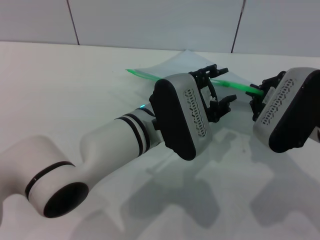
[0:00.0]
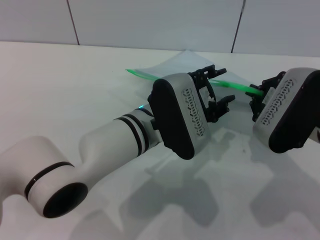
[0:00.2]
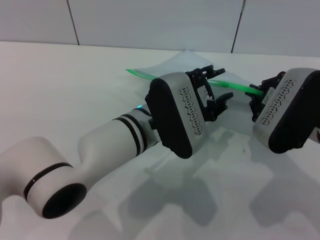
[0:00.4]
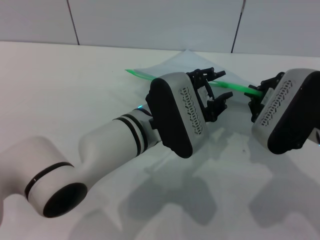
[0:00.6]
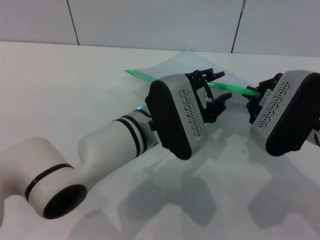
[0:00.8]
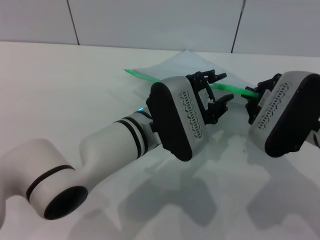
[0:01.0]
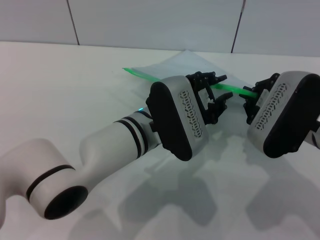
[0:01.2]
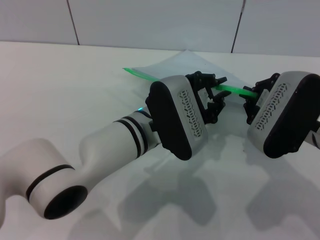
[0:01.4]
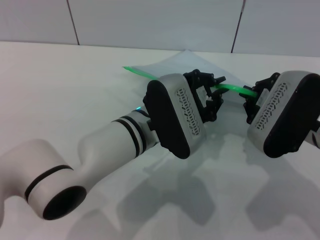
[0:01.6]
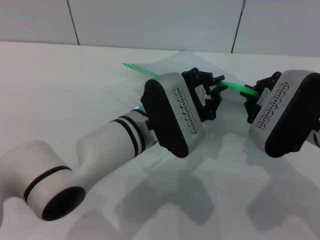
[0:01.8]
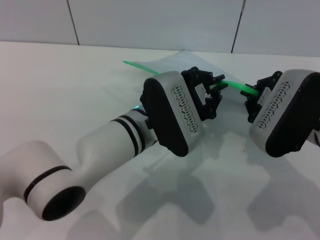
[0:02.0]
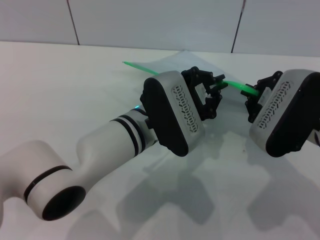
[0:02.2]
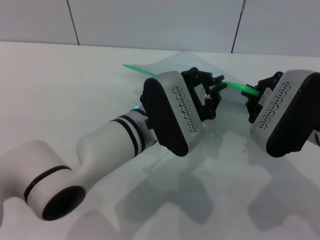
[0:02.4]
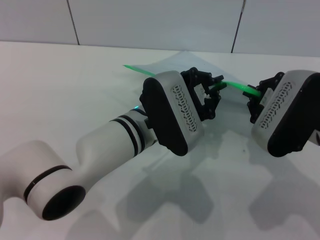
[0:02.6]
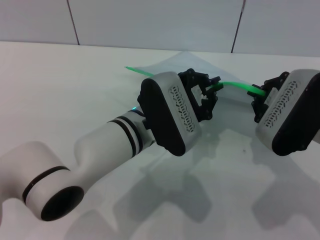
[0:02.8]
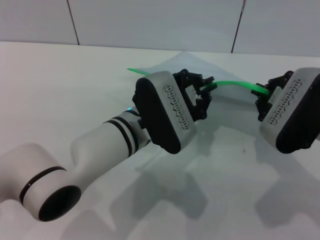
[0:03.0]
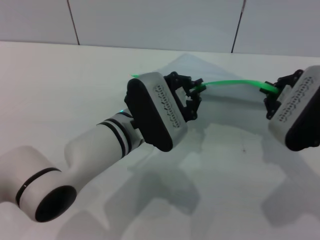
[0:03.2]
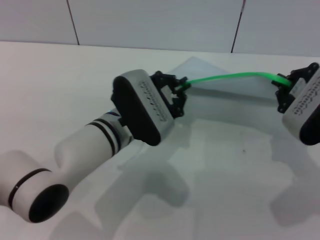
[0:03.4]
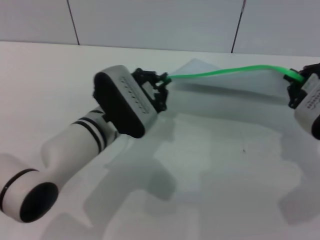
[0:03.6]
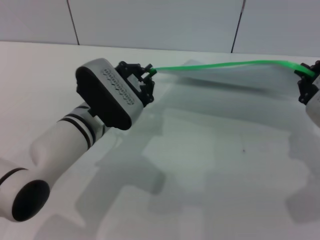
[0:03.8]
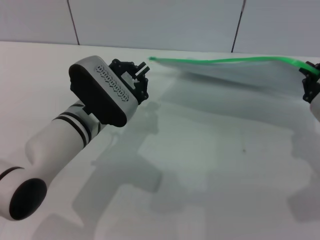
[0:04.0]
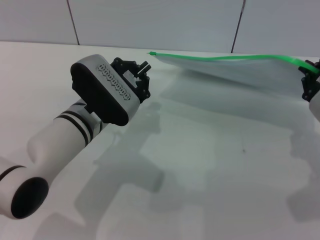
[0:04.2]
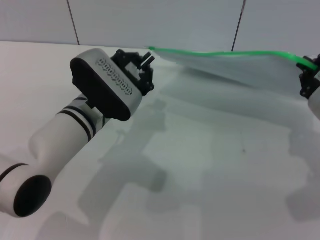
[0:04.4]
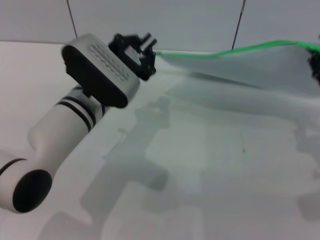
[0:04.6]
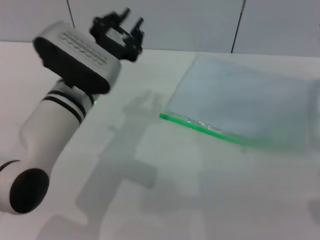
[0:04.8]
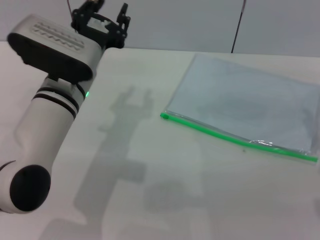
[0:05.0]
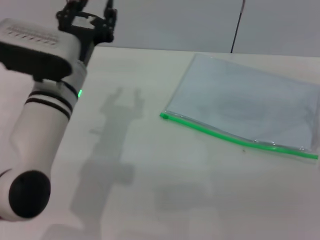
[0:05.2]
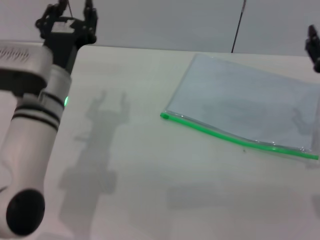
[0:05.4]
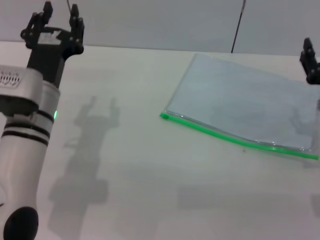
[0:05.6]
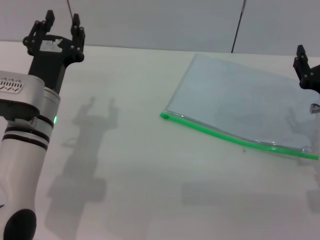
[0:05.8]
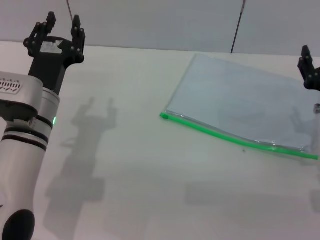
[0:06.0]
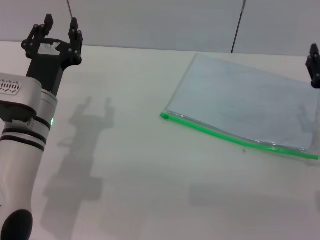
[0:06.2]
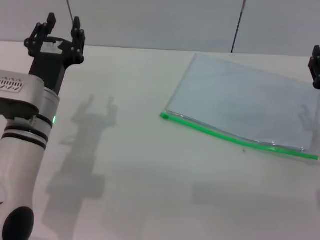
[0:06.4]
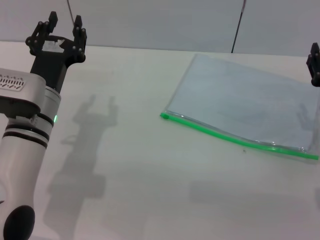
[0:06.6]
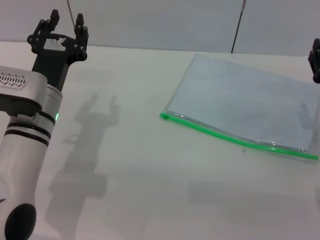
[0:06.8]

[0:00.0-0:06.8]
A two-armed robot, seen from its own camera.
Step, 0:00.0 to 0:04.4: Pulling up the zipper on the transparent plastic bag with the left gripper to close it.
Step, 0:04.6 to 0:05.0: Place the transparent plastic bag.
0:00.0 to 0:01.4: The left gripper closes up.
0:01.4 to 0:02.8: The left gripper closes its fingers.
0:02.8 to 0:04.0: The left gripper moves to the left, approximately 10 cm. Meanwhile the right gripper heads to the right, covering approximately 5 cm.
0:04.0 to 0:05.4: The right gripper opens. The left gripper changes place by about 5 cm, and opens up.
0:05.4 to 0:06.8: The grippers stay close to where they were, moving slightly.

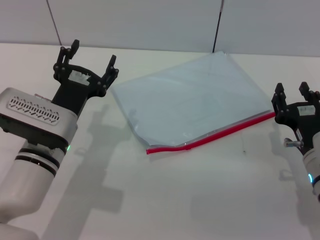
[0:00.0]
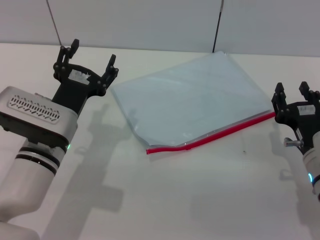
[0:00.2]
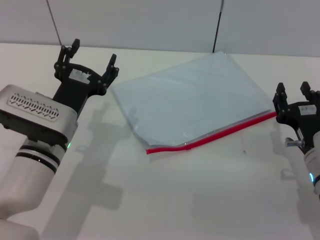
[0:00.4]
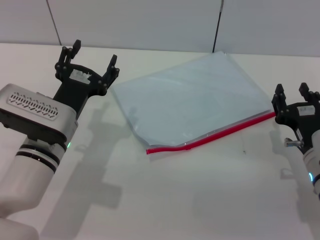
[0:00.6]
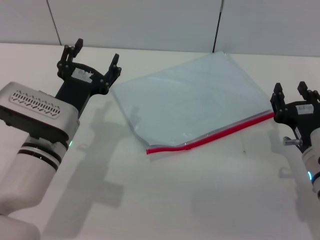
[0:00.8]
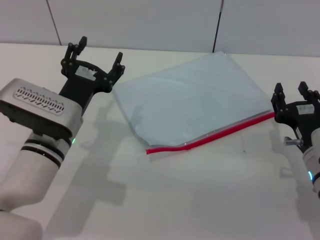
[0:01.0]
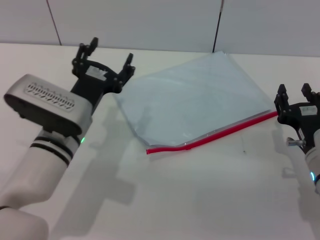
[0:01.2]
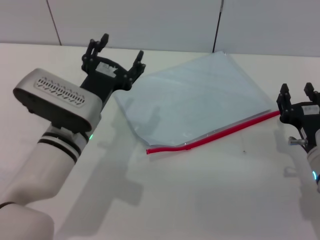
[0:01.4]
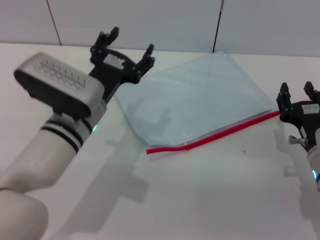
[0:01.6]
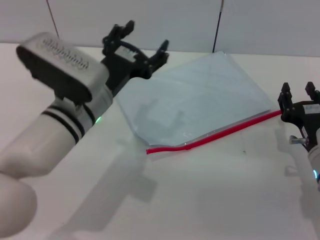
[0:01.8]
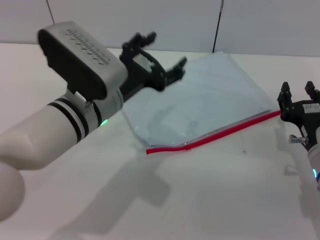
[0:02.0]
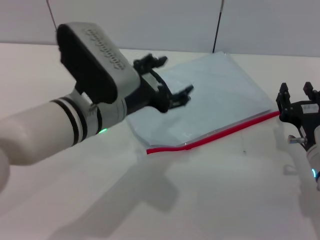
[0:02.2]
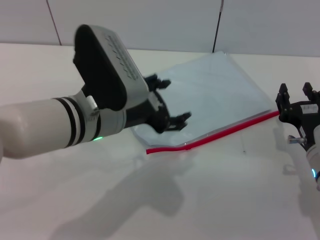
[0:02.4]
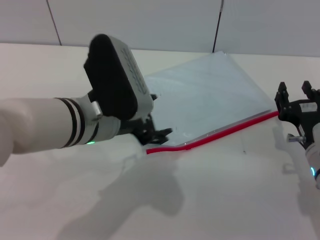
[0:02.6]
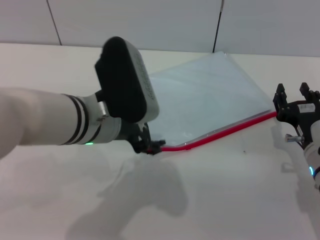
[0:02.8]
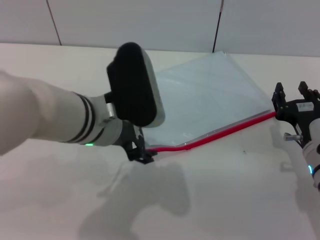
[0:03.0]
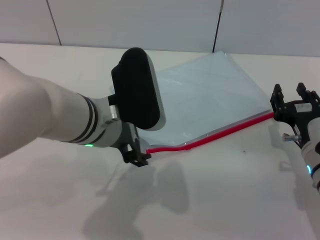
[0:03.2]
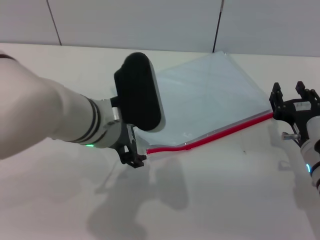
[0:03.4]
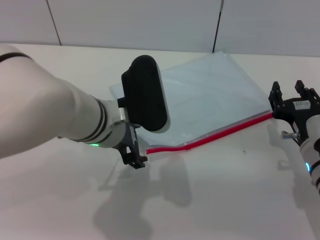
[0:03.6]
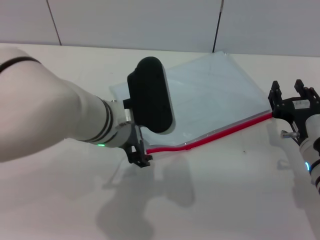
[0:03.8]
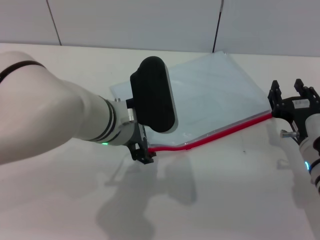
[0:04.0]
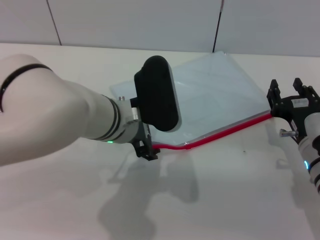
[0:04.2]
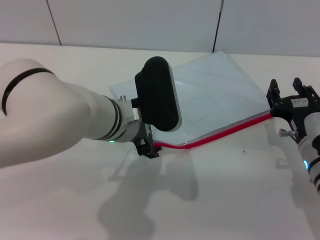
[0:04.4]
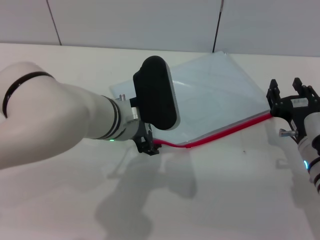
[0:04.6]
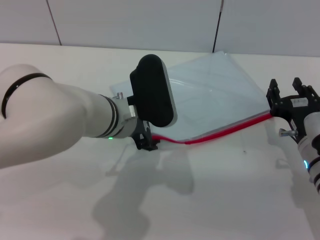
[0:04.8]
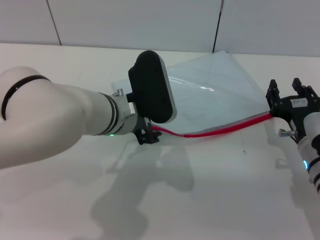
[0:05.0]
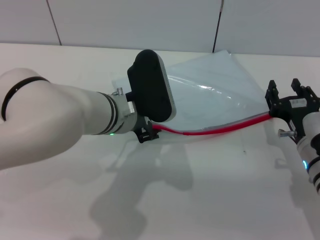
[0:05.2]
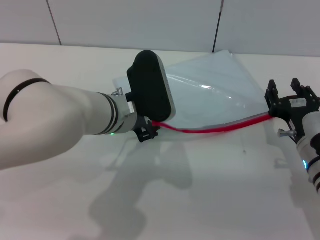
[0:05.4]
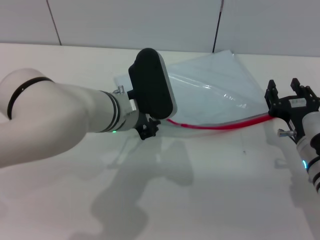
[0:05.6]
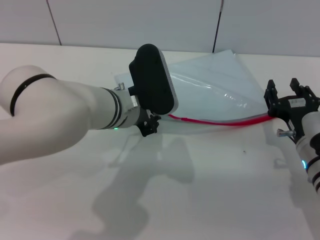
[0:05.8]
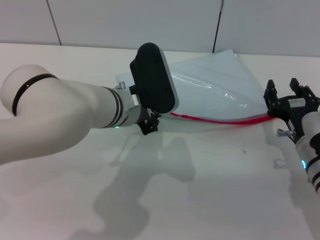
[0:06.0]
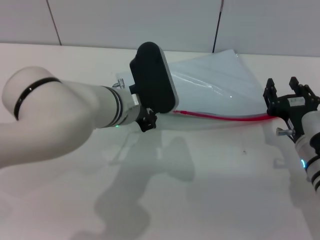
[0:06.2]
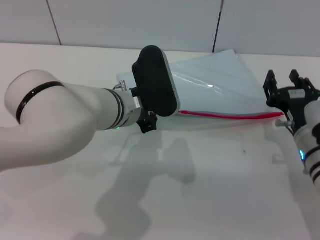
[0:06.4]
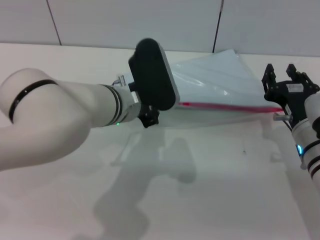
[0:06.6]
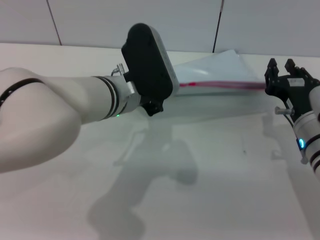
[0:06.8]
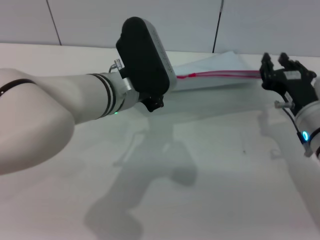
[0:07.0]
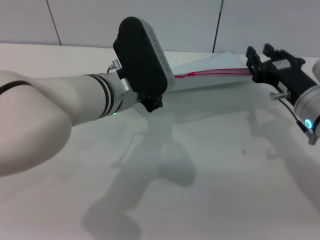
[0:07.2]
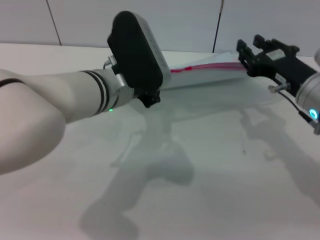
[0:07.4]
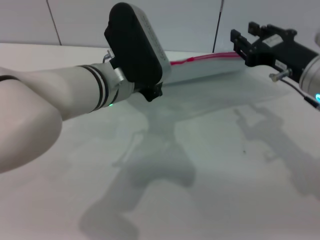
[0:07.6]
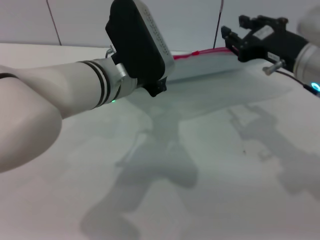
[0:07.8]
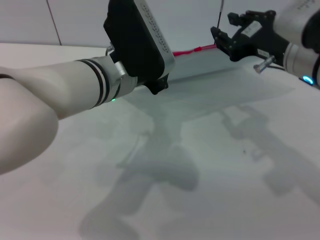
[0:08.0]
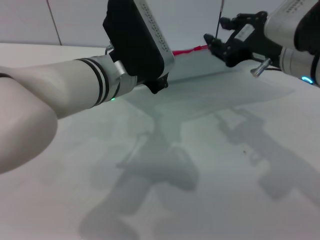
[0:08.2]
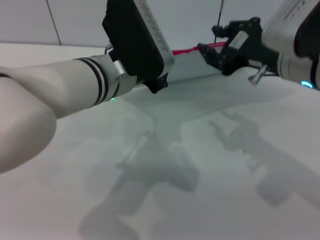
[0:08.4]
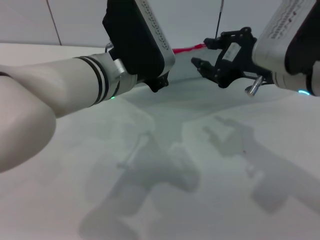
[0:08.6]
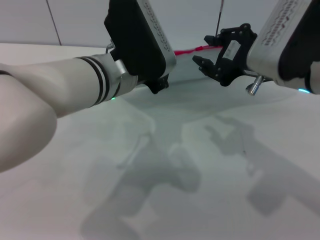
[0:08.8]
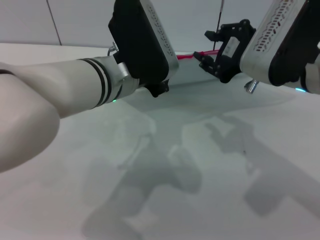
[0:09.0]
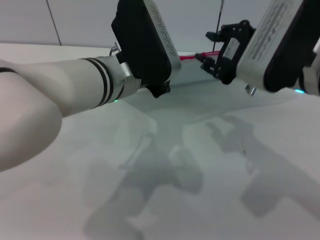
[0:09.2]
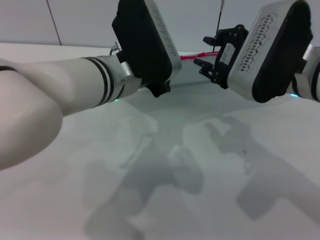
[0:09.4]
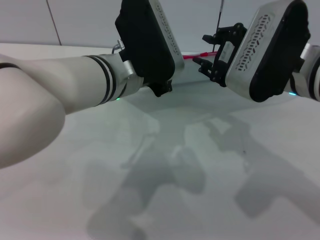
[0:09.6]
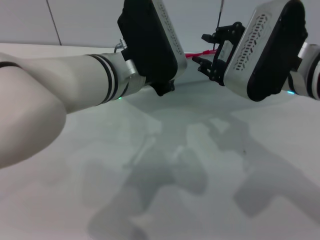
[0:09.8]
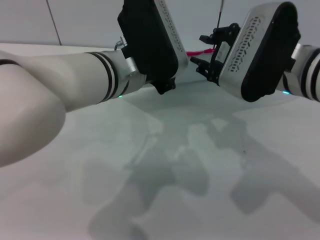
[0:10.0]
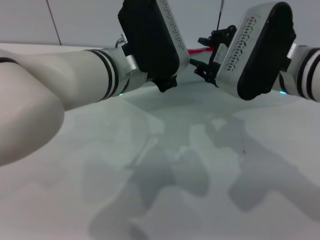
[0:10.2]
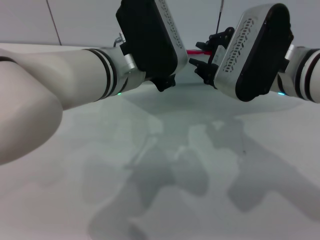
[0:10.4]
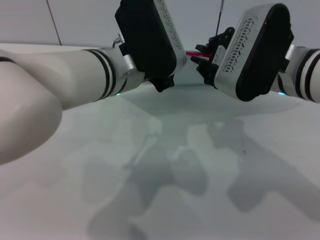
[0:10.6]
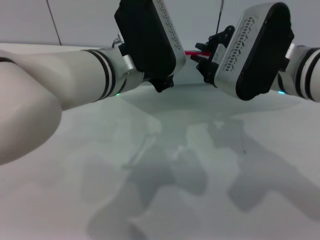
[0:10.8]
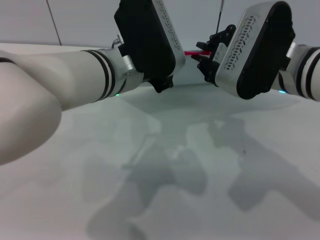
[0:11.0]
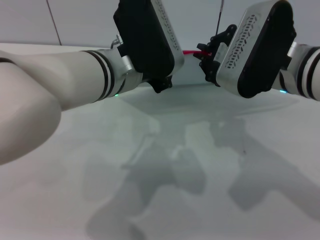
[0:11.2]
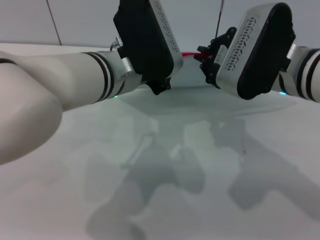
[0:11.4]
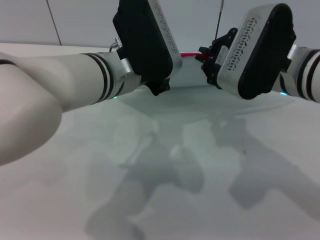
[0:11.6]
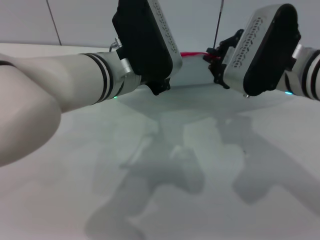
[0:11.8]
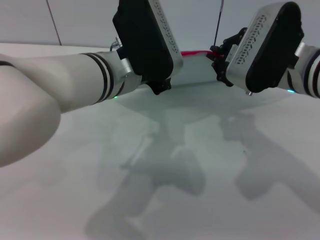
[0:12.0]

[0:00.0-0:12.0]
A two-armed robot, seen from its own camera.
Step, 0:00.0 to 0:07.0: Pick up the transparent plastic bag with the left gripper.
0:00.0 to 0:01.6: The left gripper moves about 5 cm.
0:01.6 to 0:03.0: The left gripper travels upward by about 5 cm.
0:03.0 to 0:04.4: The left gripper ends up roughly 5 cm from where it was.
0:04.4 to 0:06.0: The left gripper closes.
0:06.0 to 0:07.6: The left gripper moves roughly 5 cm; the right gripper moves upward, about 15 cm.
0:07.6 to 0:09.0: The right gripper shifts by roughly 5 cm.
0:10.4 to 0:12.0: The right gripper closes.

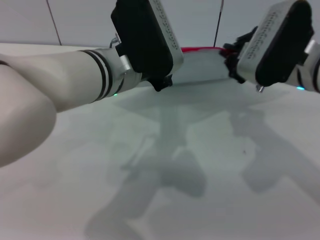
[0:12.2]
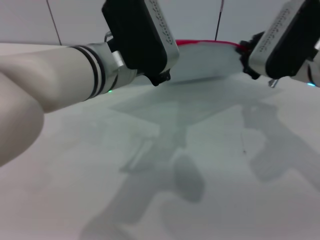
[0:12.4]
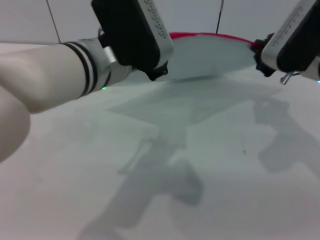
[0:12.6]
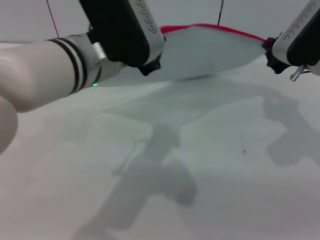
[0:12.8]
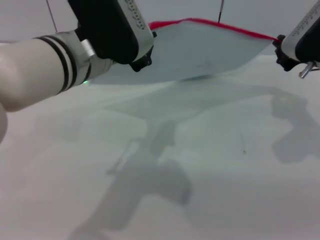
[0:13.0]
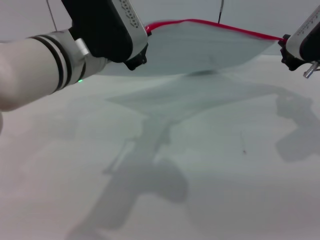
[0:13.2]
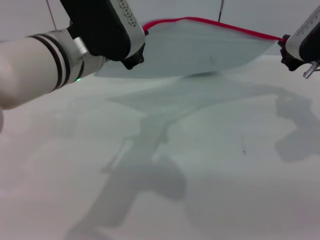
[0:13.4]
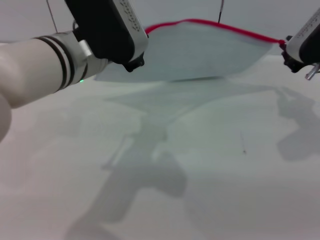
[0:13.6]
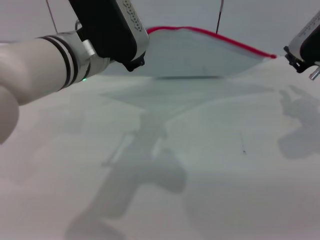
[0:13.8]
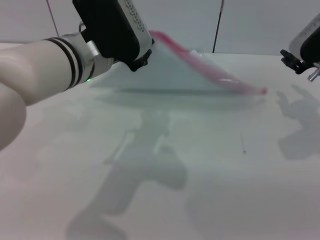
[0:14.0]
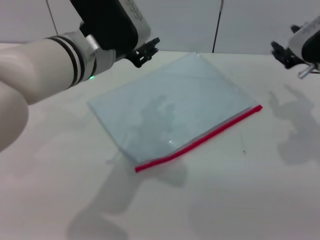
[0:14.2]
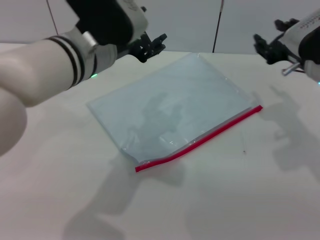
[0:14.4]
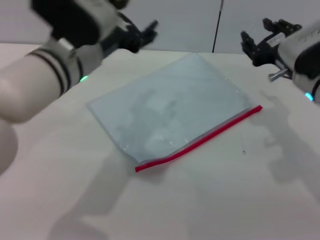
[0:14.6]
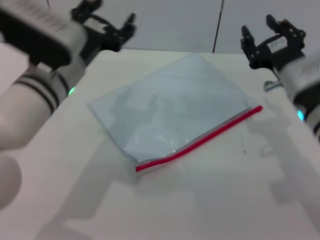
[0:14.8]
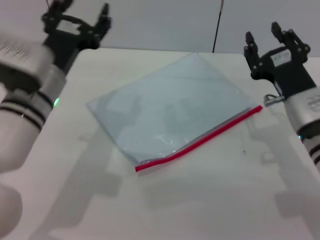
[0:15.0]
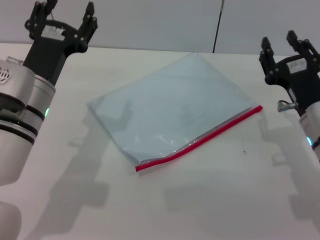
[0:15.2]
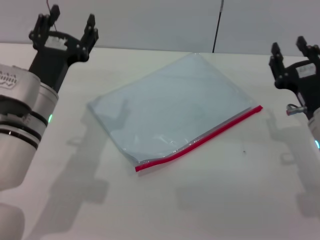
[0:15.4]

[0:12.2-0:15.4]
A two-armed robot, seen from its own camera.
Step, 0:14.0 to 0:14.8: Place the transparent plastic bag.
0:12.2 to 0:13.8: The right gripper goes about 10 cm to the right.
0:13.8 to 0:15.4: The left gripper is displaced downward and to the left by approximately 15 cm, and opens, while the right gripper goes some 15 cm downward and backward, and opens up.
